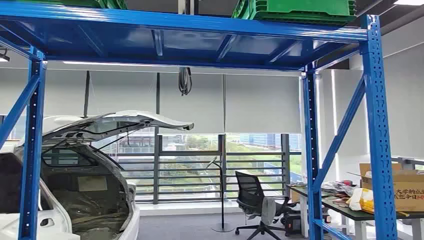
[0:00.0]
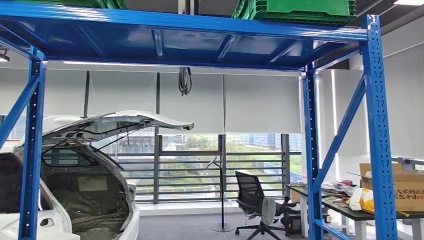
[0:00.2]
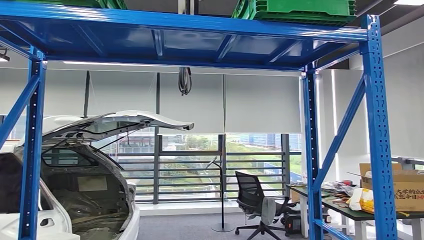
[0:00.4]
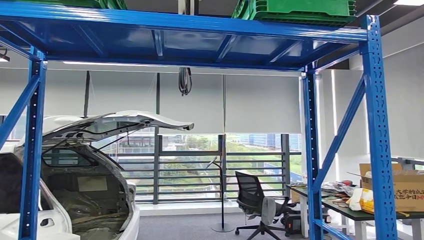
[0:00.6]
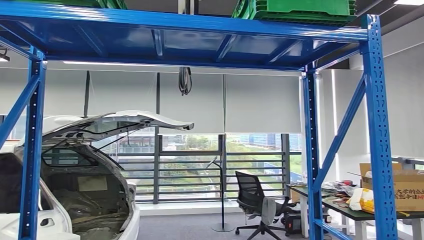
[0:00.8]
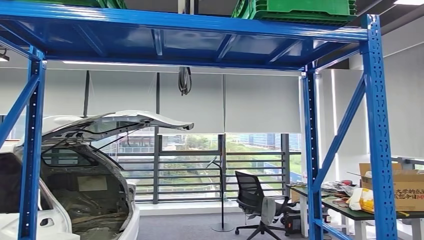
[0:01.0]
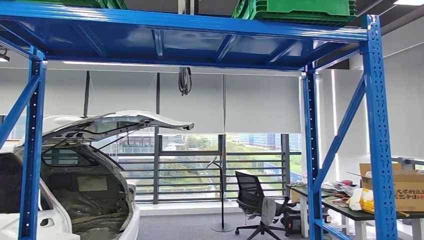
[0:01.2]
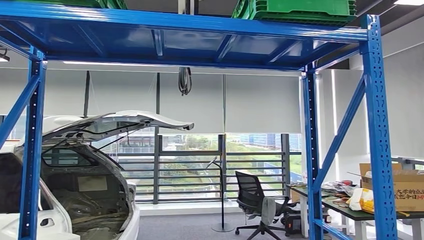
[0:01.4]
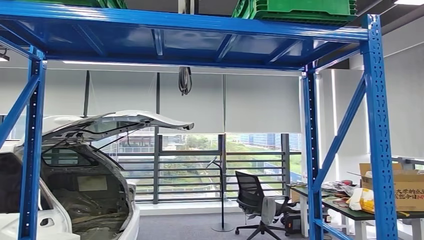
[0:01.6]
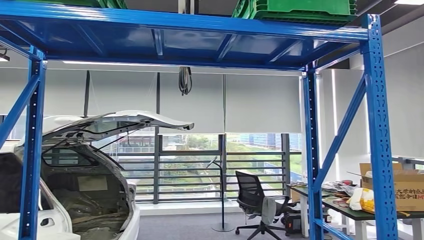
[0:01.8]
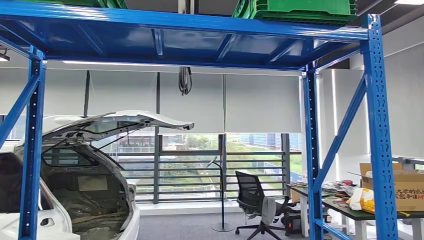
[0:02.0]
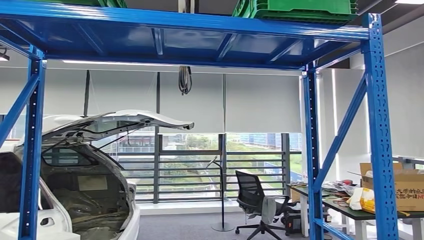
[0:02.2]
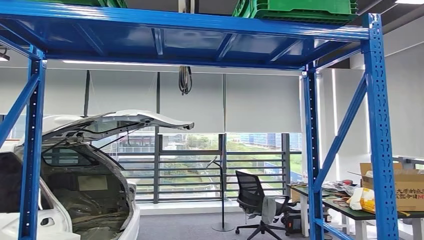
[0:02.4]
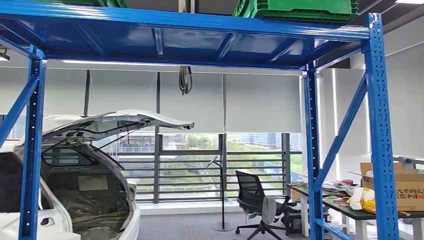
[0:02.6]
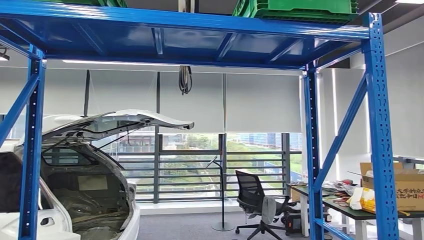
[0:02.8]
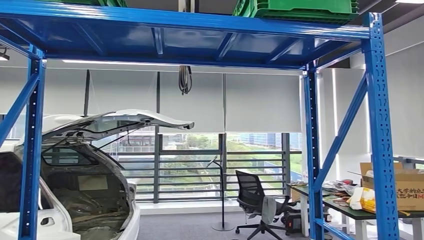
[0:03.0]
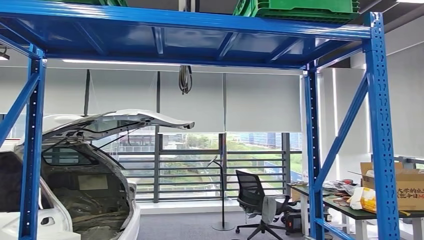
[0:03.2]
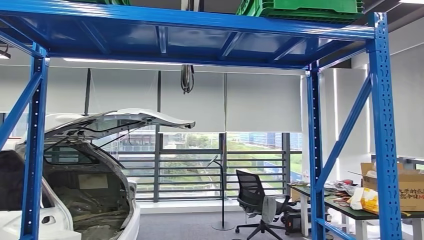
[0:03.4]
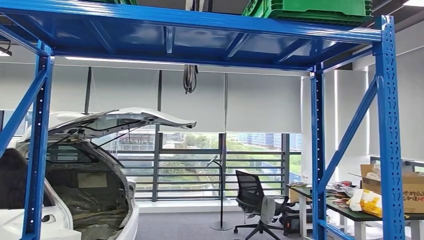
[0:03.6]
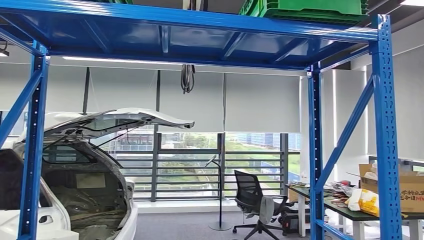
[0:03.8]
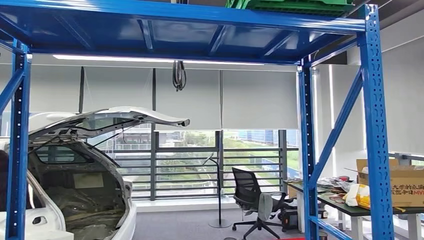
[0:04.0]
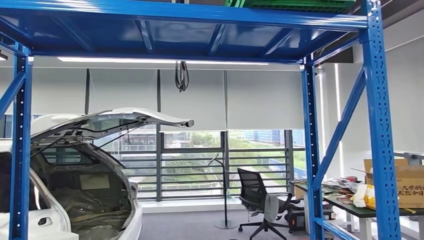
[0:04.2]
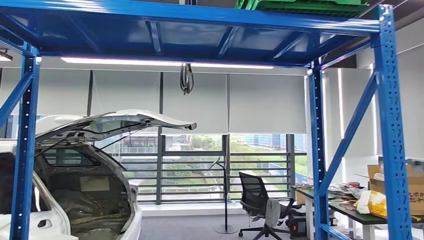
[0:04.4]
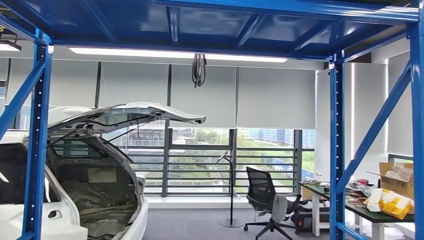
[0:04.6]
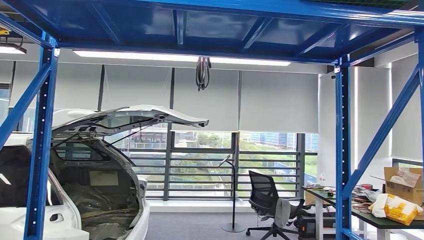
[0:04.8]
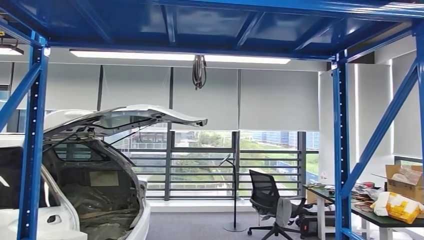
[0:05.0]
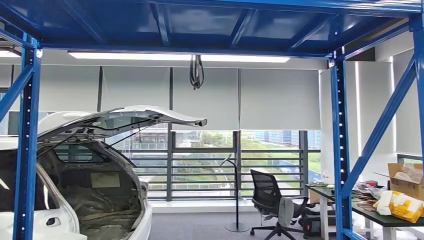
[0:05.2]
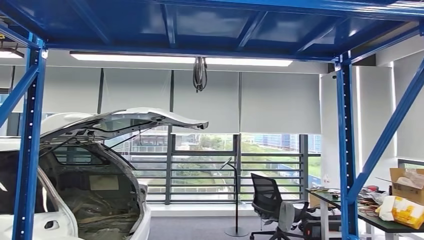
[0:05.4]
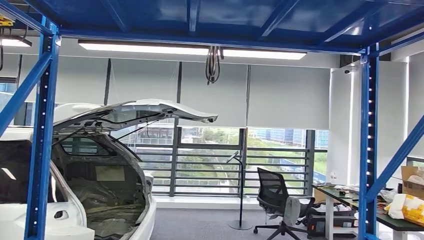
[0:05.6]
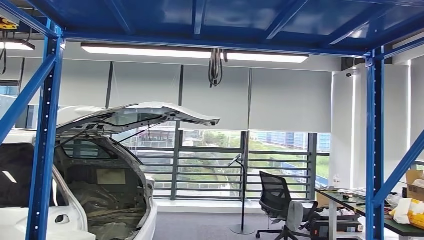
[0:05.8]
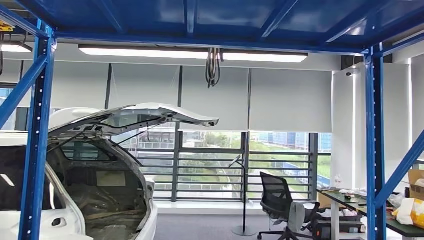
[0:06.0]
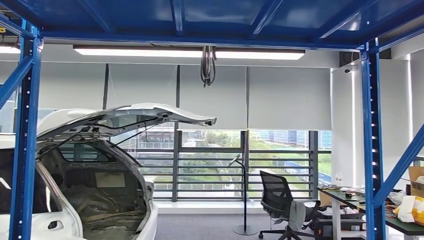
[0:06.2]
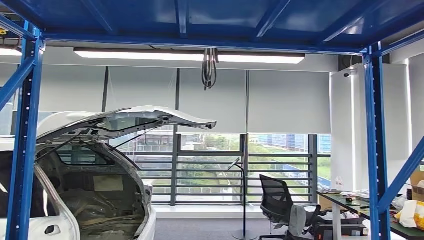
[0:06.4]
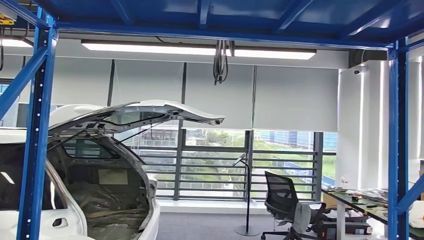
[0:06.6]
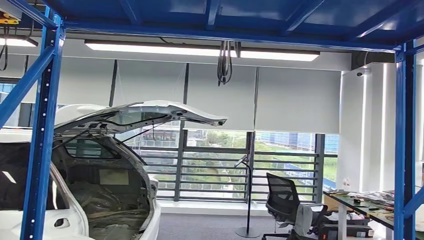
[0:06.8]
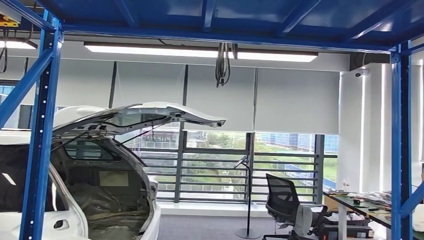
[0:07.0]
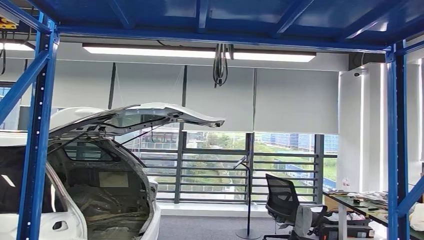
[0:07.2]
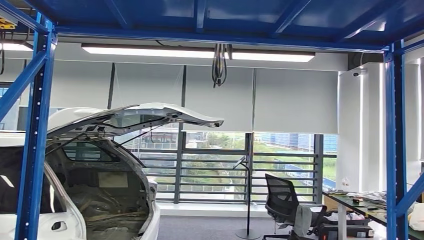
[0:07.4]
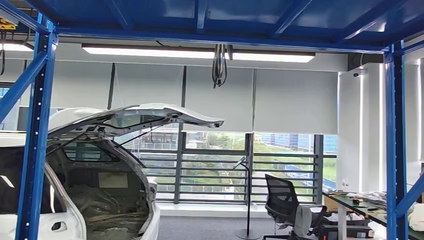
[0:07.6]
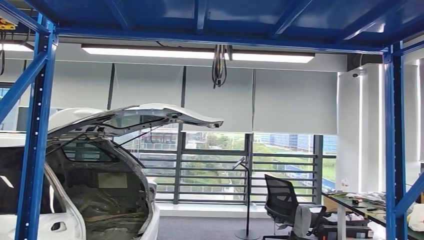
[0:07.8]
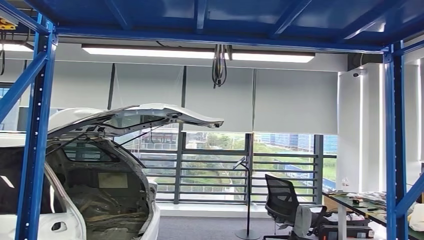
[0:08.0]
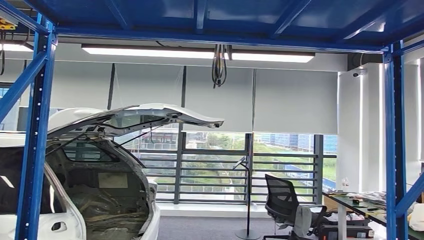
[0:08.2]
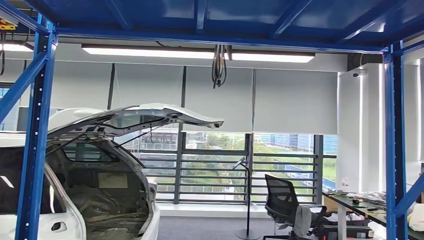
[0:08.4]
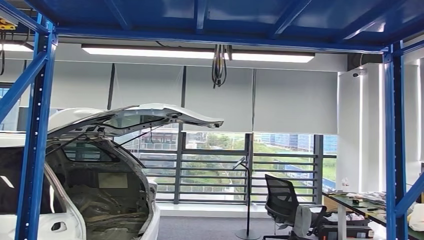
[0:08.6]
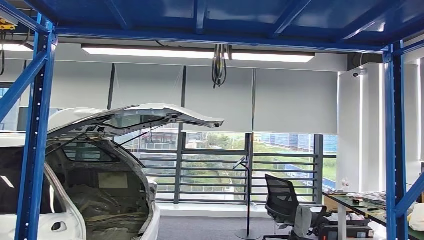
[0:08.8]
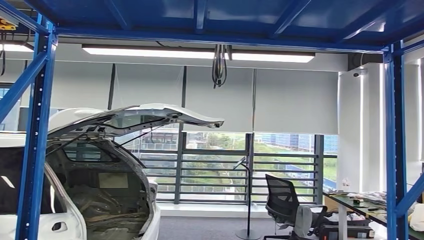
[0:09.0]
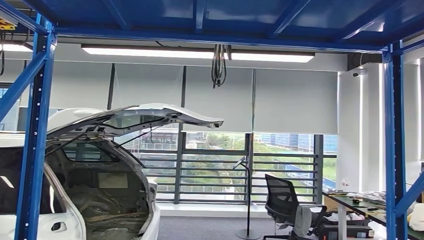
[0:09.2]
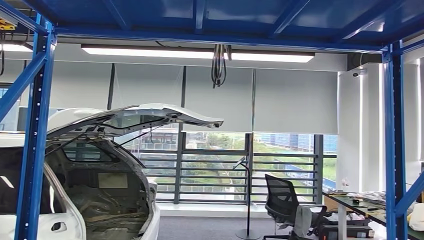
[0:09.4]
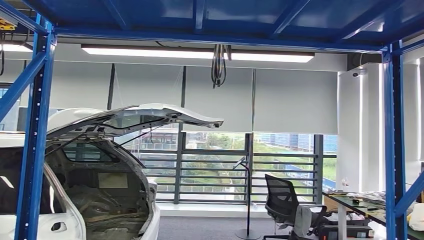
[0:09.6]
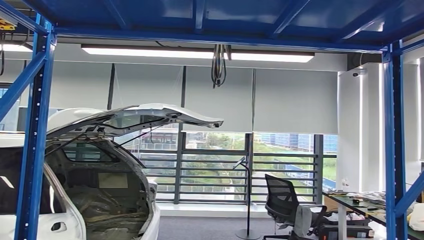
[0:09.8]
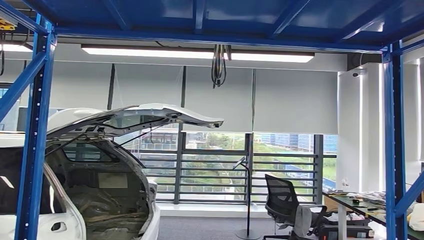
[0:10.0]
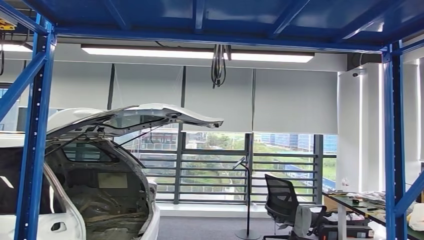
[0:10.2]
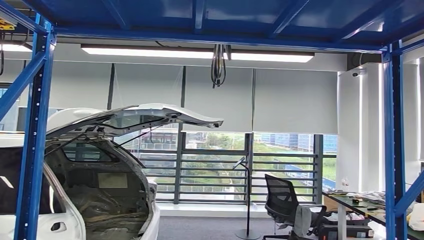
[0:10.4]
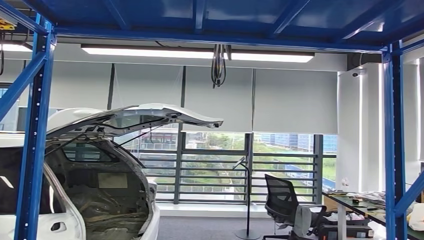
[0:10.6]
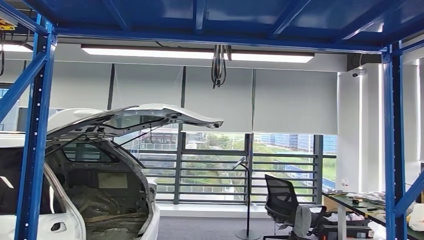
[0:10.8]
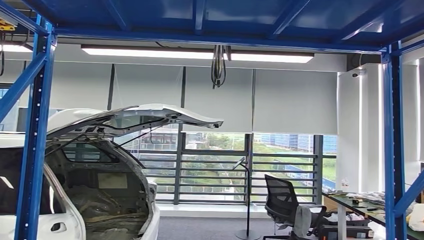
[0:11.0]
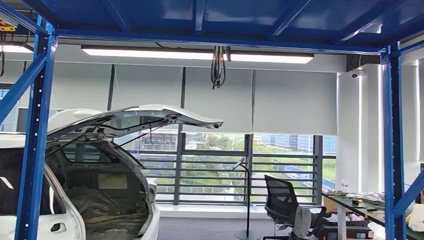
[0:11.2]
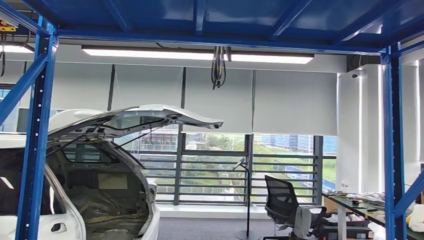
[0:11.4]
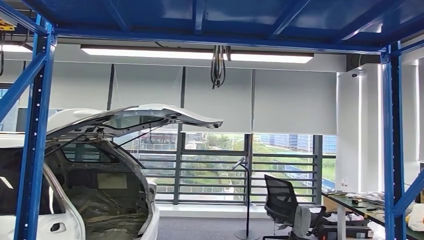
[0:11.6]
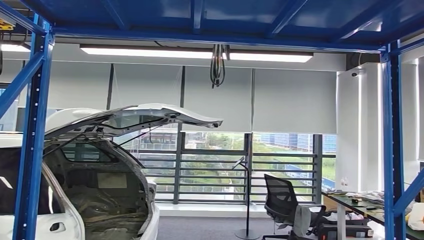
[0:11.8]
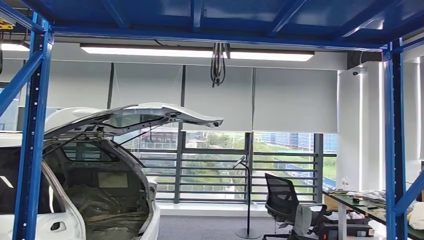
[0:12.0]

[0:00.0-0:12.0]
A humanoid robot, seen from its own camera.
Step, 0:00.0 to 0:12.0: Pick up the small component from the shelf.
0:01.6 to 0:03.0: The right hand goes roughly 50 cm upward and forward.
0:09.0 to 0:10.4: The right hand heads to the left, covering roughly 15 cm.
0:10.4 to 0:12.0: The right hand travels upward and to the left by some 10 cm.

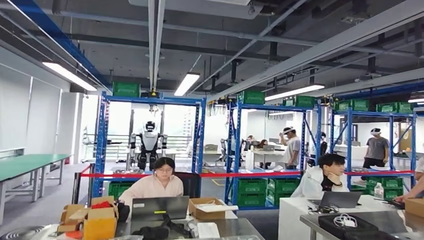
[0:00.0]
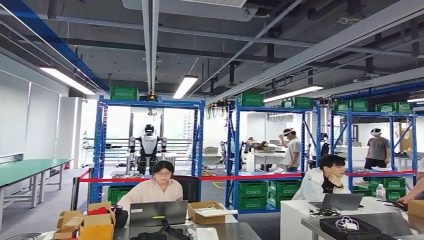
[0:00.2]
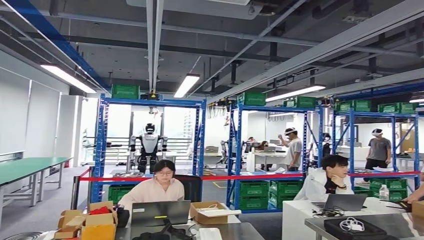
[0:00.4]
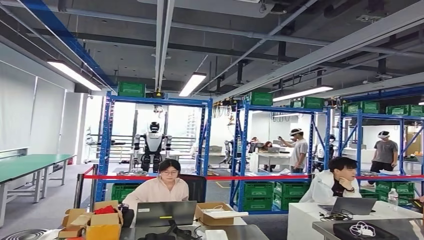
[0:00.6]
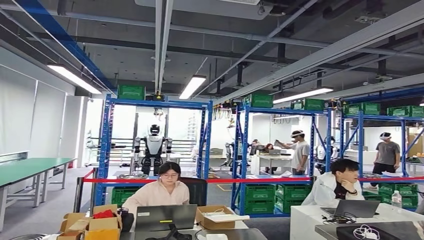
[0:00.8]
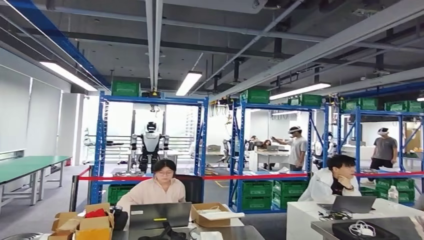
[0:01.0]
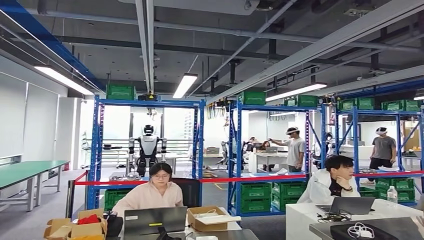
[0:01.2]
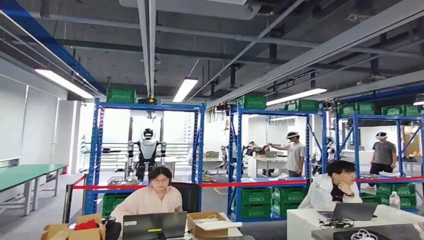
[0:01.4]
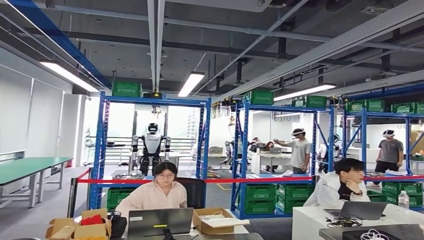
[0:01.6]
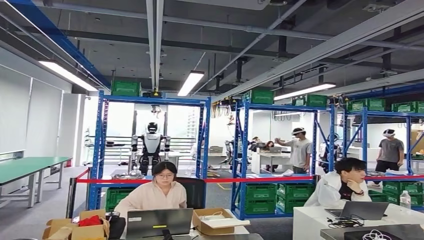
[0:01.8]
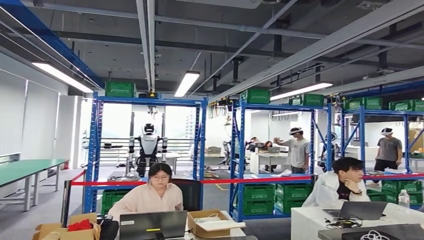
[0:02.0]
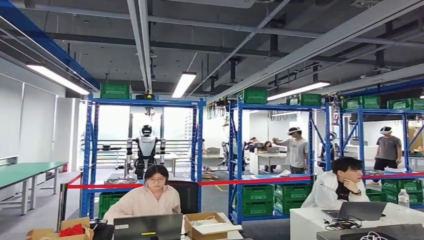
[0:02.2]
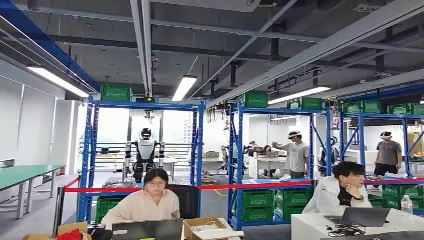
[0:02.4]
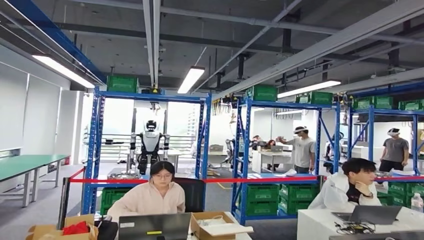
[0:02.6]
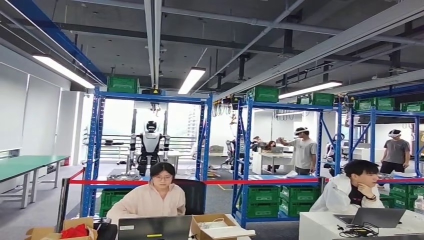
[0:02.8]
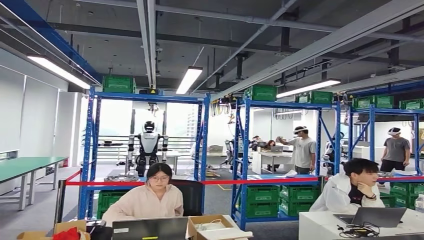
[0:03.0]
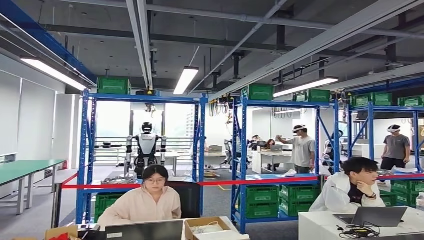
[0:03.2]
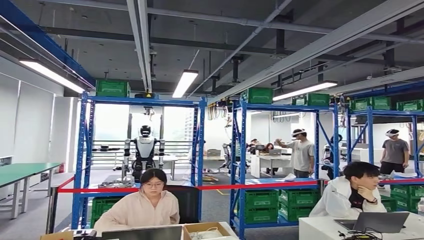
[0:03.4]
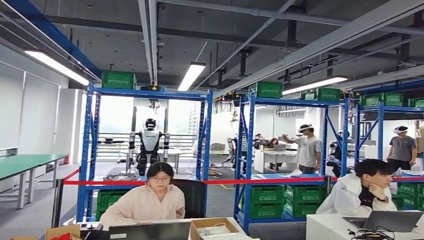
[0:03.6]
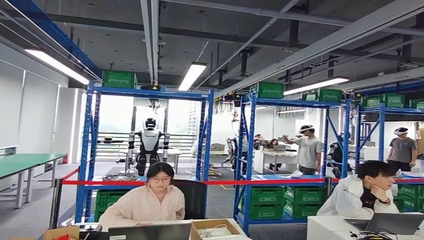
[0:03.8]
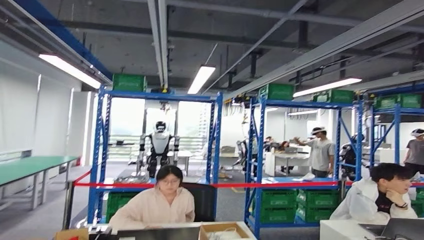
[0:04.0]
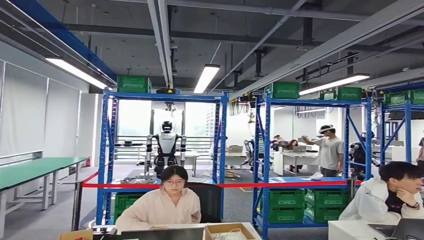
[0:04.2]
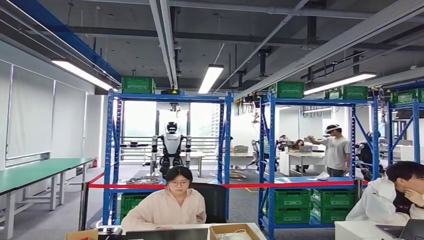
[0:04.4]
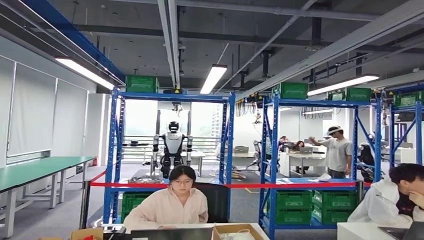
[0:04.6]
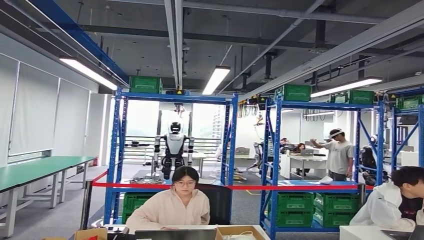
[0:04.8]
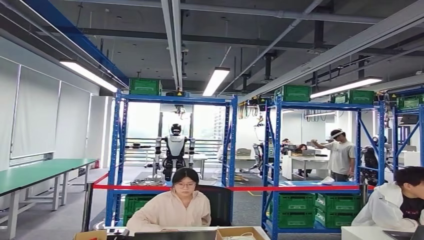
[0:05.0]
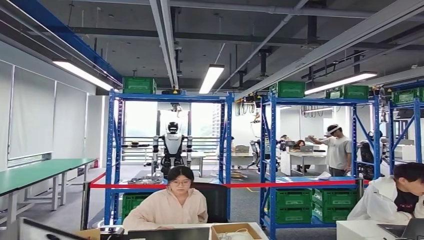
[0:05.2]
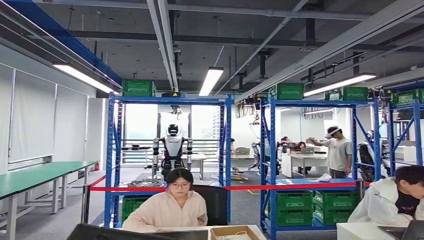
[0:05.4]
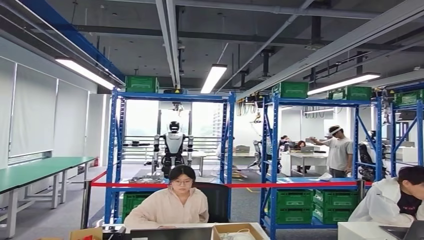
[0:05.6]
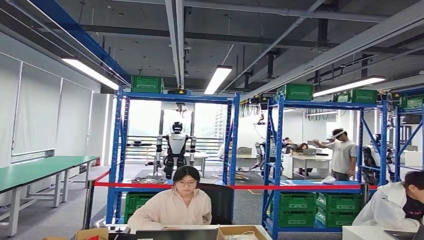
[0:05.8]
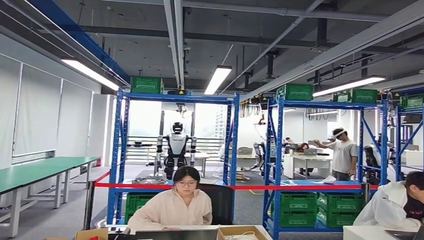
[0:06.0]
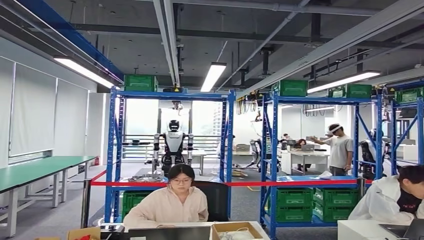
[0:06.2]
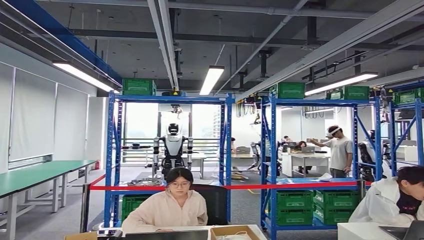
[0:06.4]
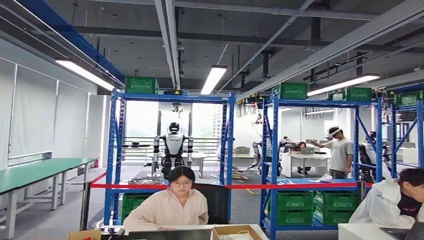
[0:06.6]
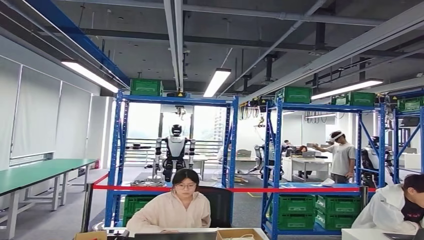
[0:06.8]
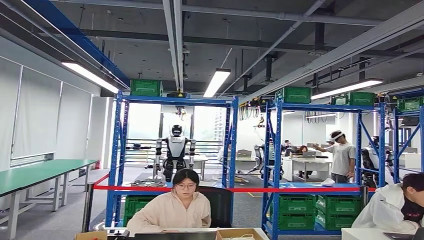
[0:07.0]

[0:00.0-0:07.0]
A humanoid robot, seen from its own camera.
Step, 0:00.0 to 0:06.2: Move the small component to the workbench.
